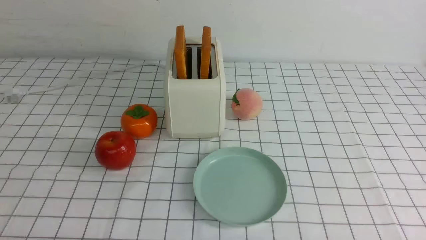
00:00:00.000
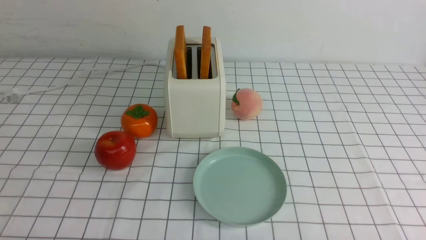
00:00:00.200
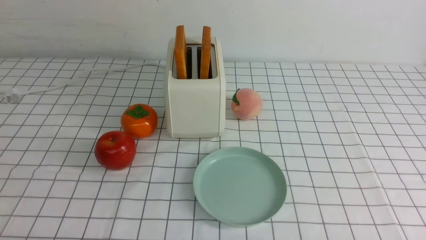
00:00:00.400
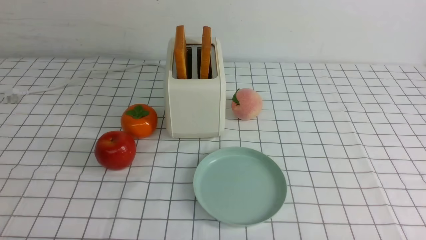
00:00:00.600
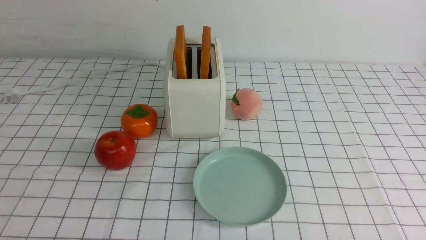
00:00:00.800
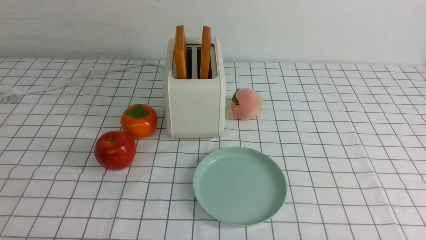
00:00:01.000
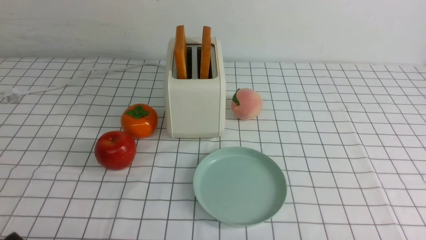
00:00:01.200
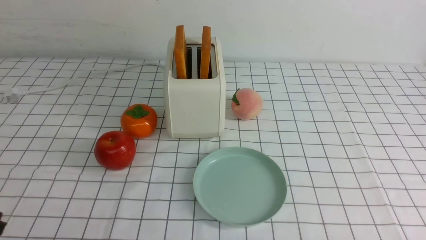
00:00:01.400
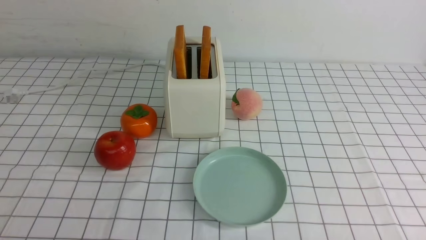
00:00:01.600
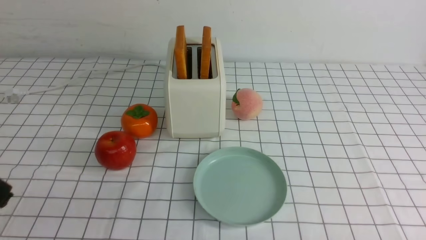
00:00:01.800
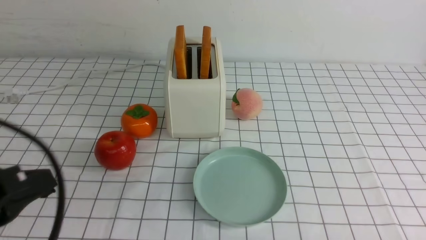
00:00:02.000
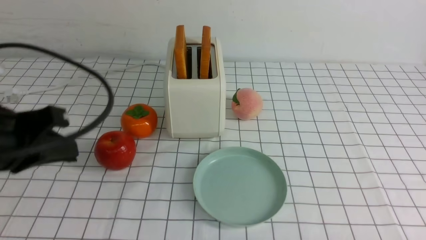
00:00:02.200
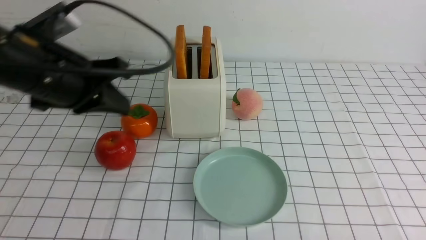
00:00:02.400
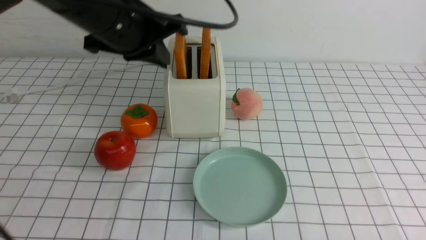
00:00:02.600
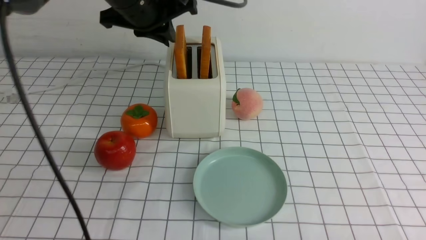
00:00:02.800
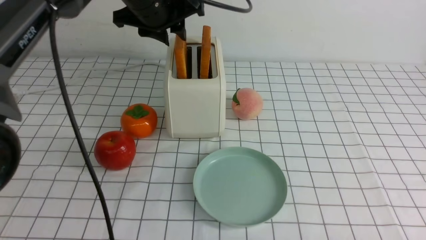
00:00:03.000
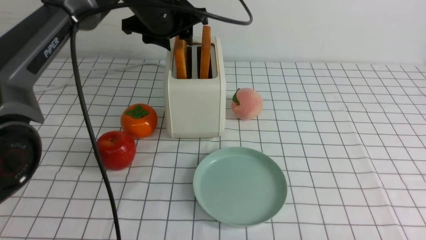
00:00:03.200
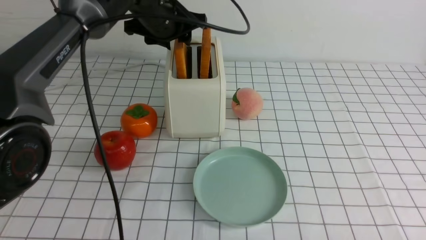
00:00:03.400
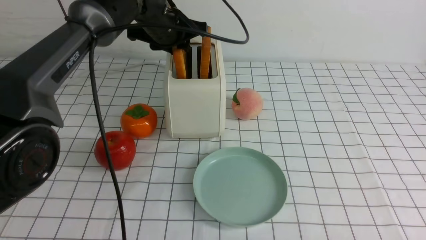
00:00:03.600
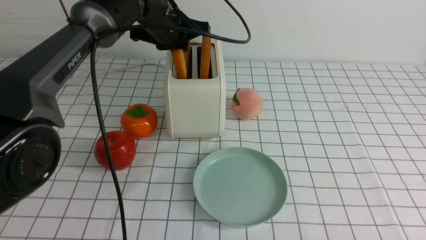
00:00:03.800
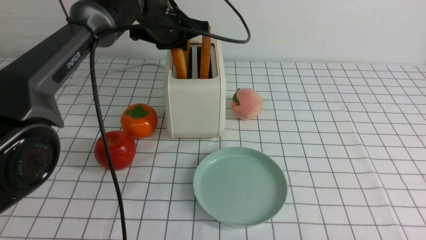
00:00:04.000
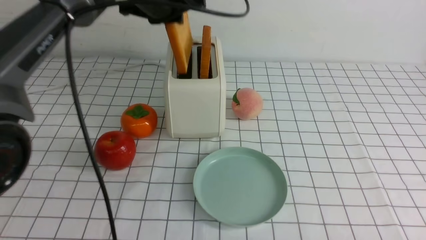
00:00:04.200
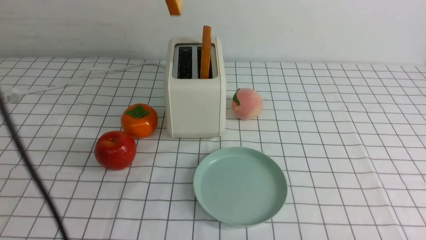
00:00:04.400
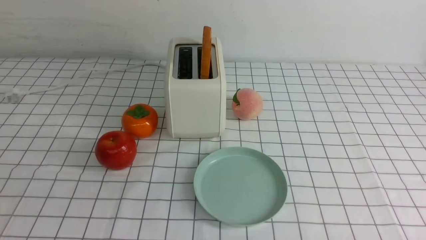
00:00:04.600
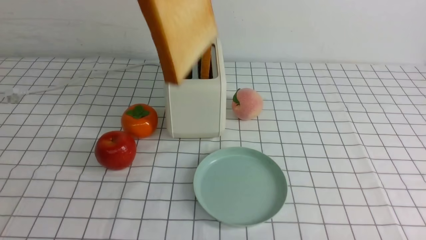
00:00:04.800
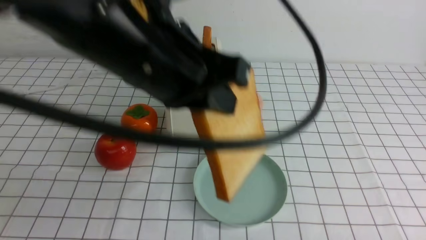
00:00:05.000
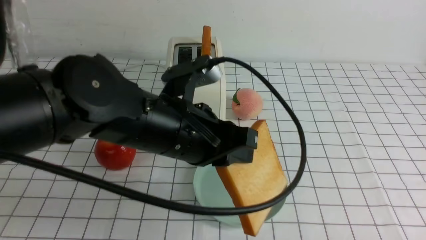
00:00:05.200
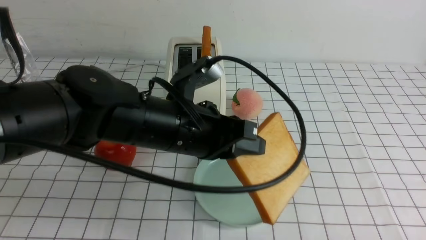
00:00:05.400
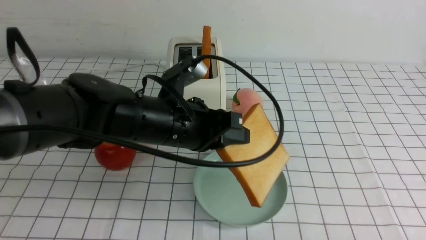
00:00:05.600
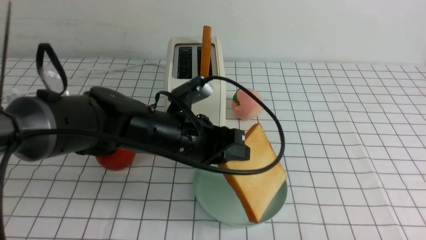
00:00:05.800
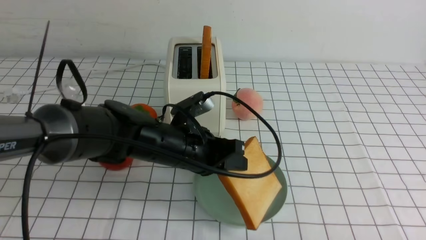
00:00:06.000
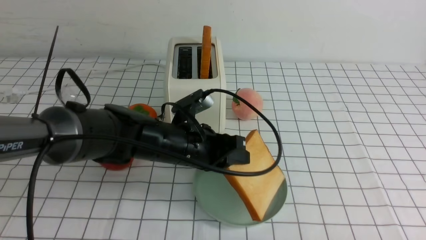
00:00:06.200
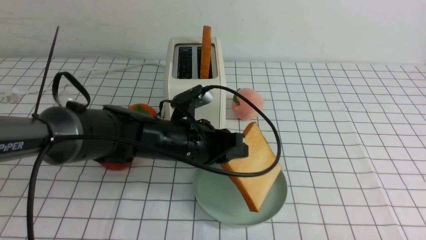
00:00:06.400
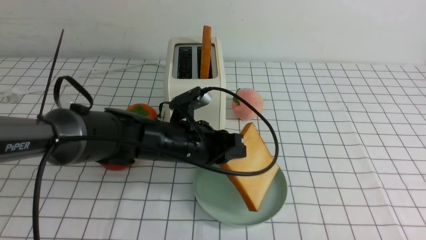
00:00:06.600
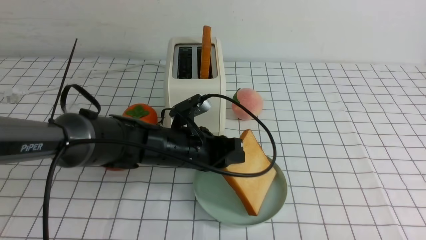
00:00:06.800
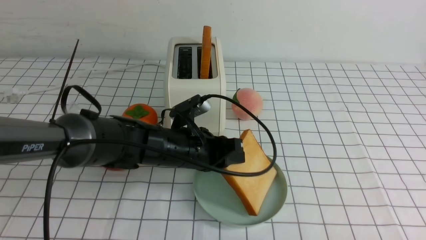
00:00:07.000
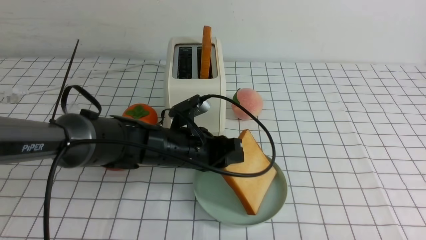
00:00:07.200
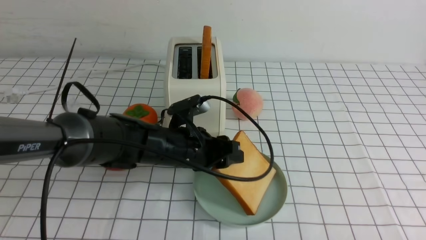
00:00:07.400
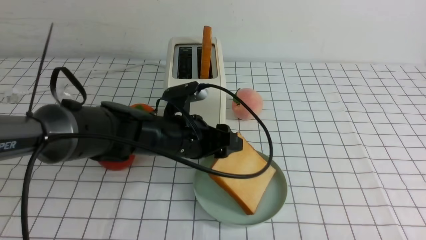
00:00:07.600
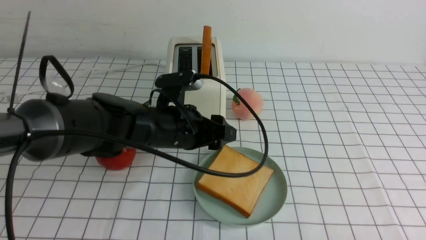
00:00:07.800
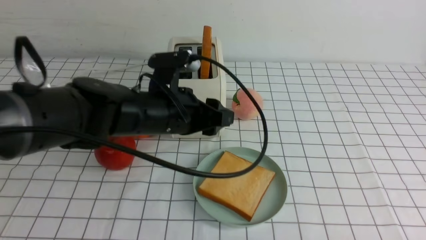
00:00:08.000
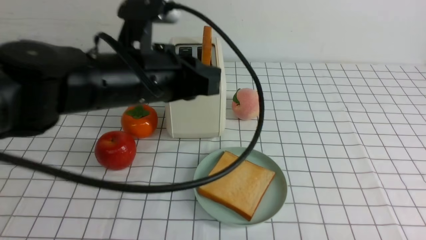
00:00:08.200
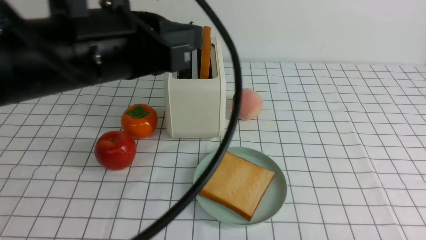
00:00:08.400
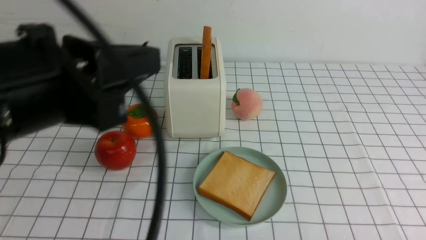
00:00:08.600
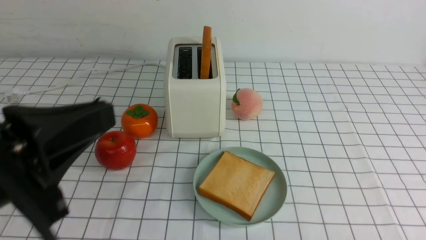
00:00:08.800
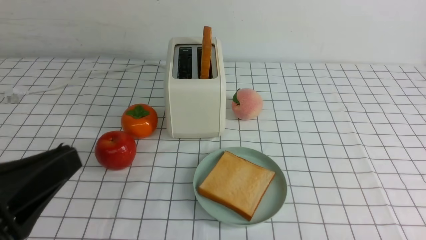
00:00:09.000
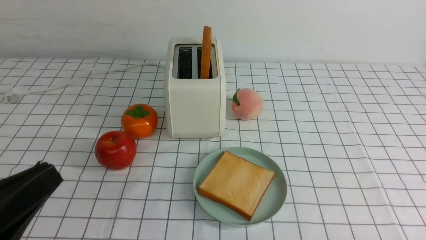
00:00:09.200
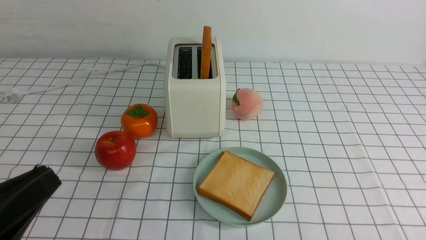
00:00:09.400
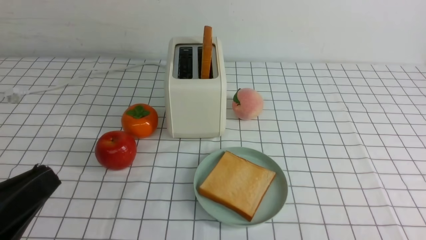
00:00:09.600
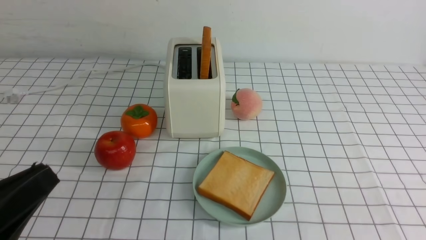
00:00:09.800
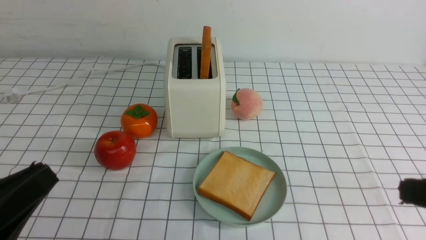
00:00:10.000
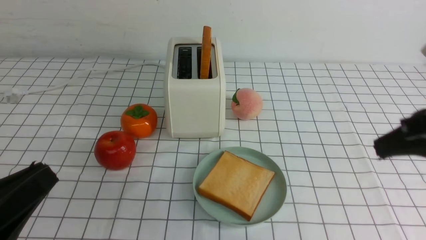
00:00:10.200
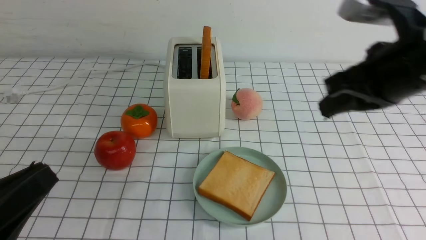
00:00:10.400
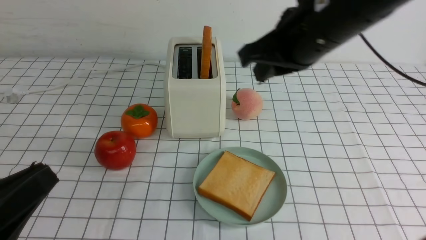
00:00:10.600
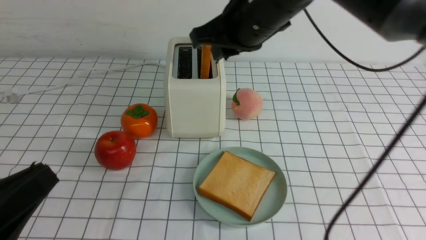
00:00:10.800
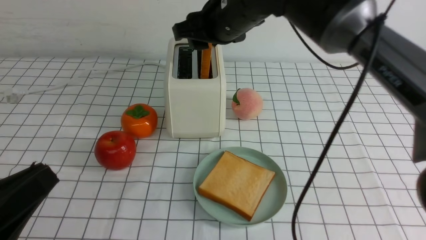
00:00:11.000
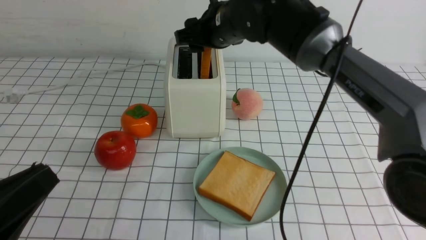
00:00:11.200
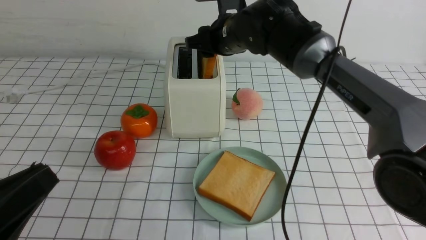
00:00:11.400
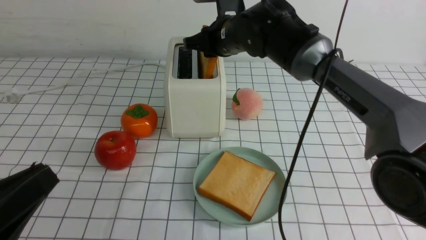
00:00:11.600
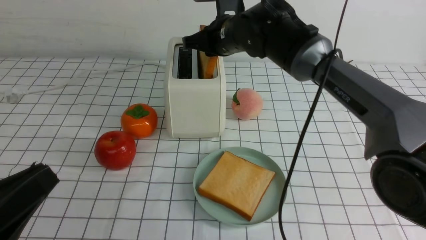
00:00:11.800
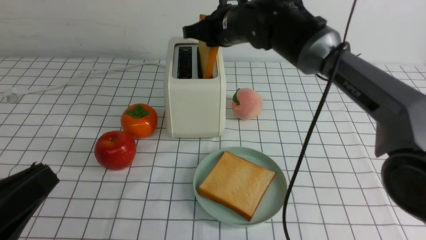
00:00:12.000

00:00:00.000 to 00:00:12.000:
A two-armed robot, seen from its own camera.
Task of the whole recording: take toasted bread from bread machine on white checkered table place on plate.
Step, 00:00:00.000 to 00:00:04.000: use the left arm to take out a slice of bread.
Step, 00:00:04.400 to 00:00:07.800: use the left arm to put a slice of bread into the empty plate.
Step, 00:00:08.000 to 00:00:12.000: use the right arm to take out a slice of bread.
00:00:01.600 to 00:00:03.000: The left gripper goes approximately 40 cm forward, upward and to the right, and closes and opens again.
00:00:03.000 to 00:00:04.400: The left gripper shifts about 5 cm upward, and opens, then closes again.
00:00:04.400 to 00:00:06.000: The left gripper travels downward and backward by approximately 25 cm.
00:00:06.000 to 00:00:07.600: The left gripper opens.
00:00:07.600 to 00:00:09.000: The left gripper moves backward, to the left and upward, about 30 cm, and closes.
00:00:09.000 to 00:00:10.400: The right gripper goes roughly 30 cm upward, forward and to the left, and closes up; the left gripper changes place by about 5 cm.
00:00:10.400 to 00:00:12.000: The right gripper moves forward and to the left, about 30 cm, and opens, then closes once more.

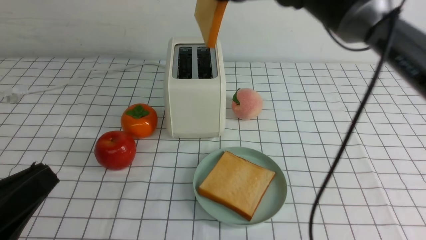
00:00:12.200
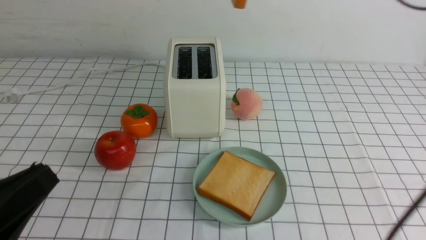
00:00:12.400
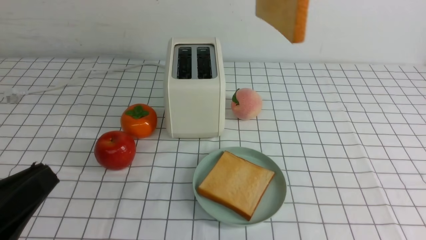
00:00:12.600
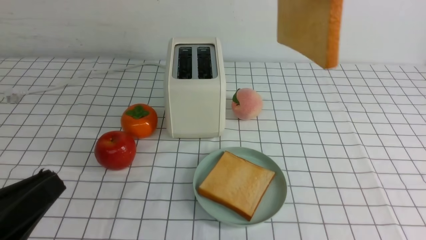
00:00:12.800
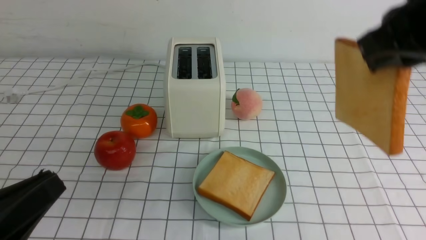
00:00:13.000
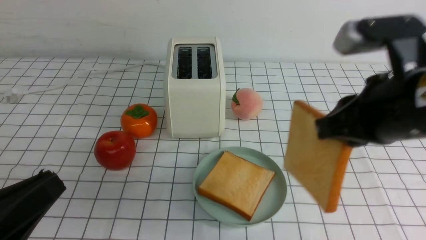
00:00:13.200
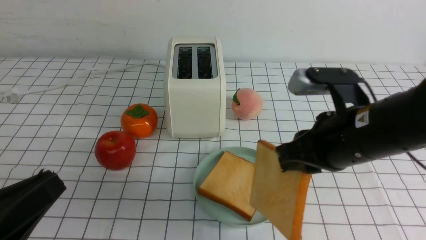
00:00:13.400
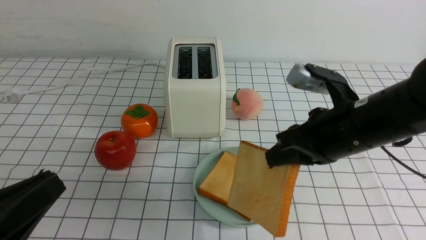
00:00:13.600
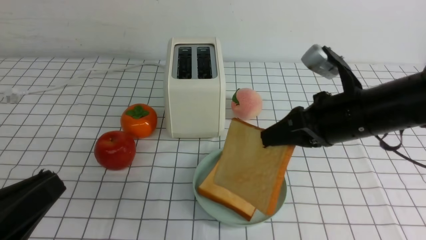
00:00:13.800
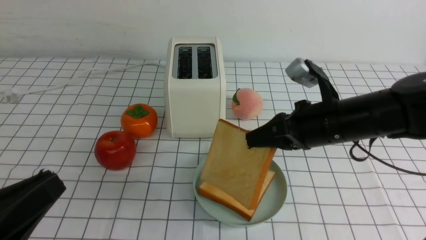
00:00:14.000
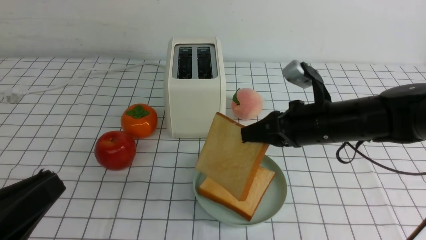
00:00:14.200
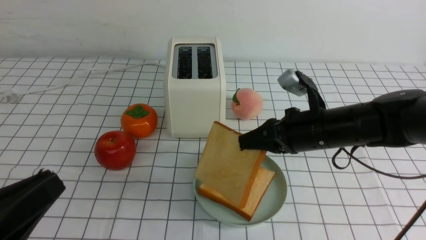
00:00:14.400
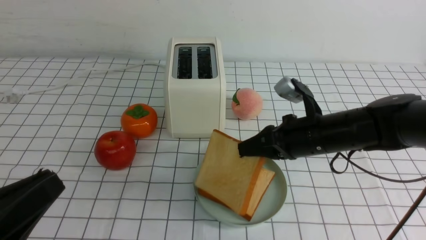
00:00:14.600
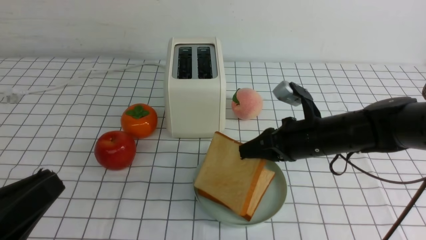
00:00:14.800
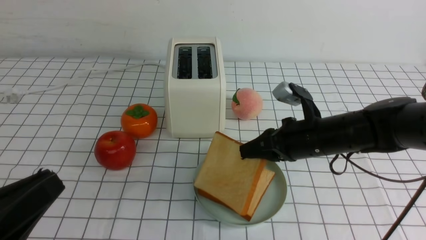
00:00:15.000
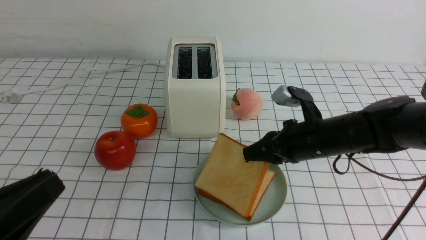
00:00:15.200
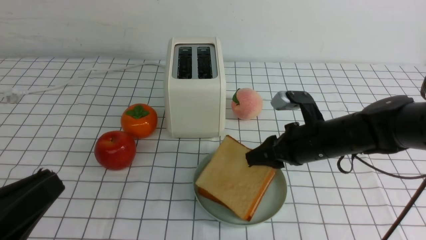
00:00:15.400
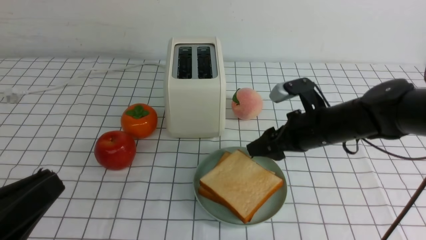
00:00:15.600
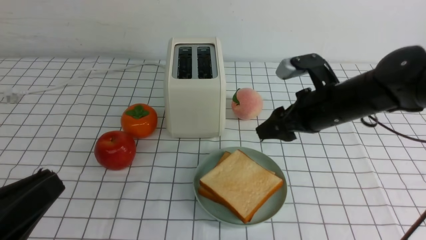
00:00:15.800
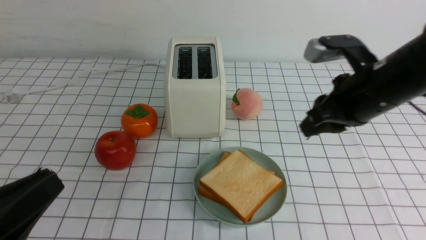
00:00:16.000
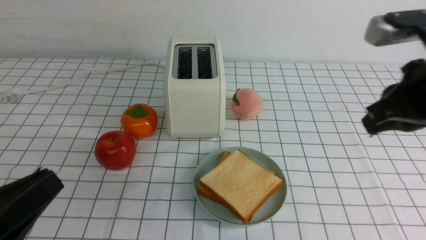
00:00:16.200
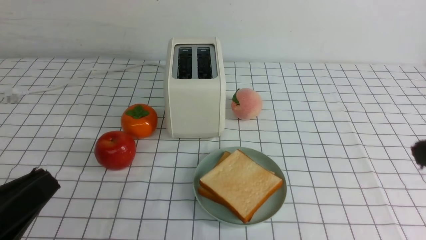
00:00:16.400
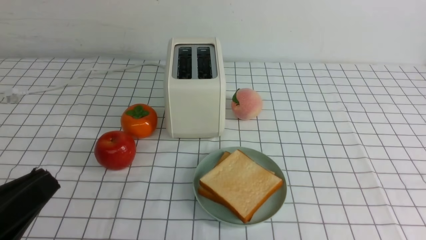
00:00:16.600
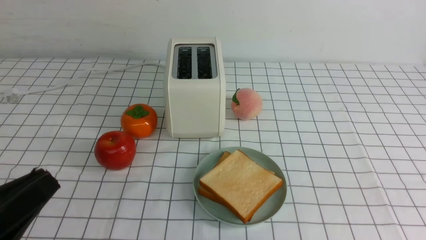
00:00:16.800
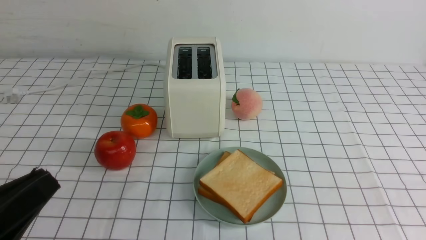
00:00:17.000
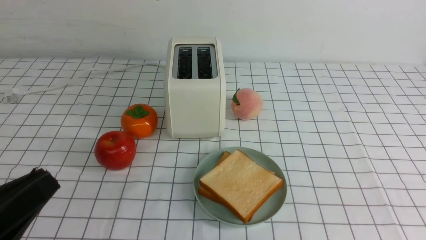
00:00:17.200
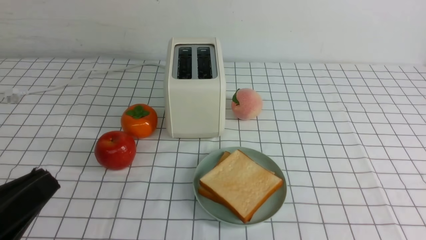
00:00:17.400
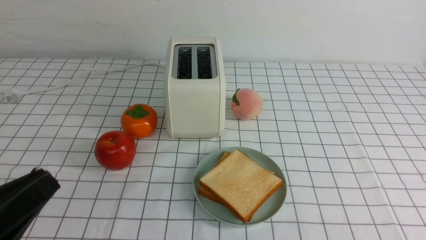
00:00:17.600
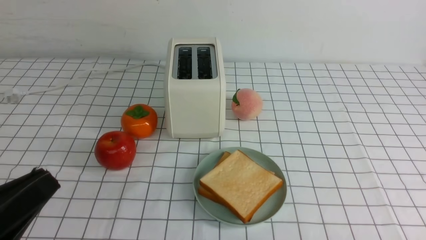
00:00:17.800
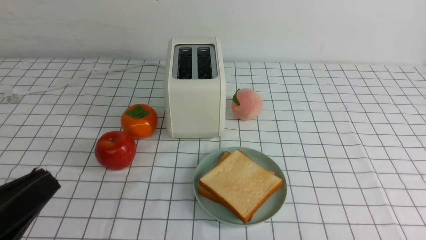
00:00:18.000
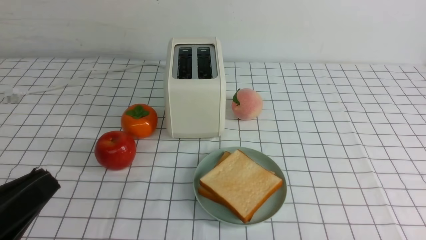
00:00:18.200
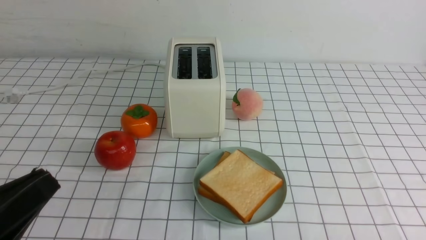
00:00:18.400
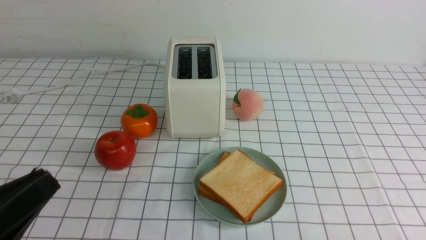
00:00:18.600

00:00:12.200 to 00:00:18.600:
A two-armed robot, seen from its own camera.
Task of the whole recording: take toasted bread from bread machine on white checkered table place on plate.
Step, 00:00:12.200 to 00:00:15.600: use the right arm to put a slice of bread into the plate.
00:00:12.200 to 00:00:13.800: The right gripper is displaced backward, to the right and downward by some 20 cm.
00:00:13.800 to 00:00:15.400: The right gripper goes some 10 cm downward and forward, and opens its fingers.
00:00:15.400 to 00:00:17.000: The right gripper heads backward, upward and to the right, covering roughly 30 cm, and closes its fingers.
